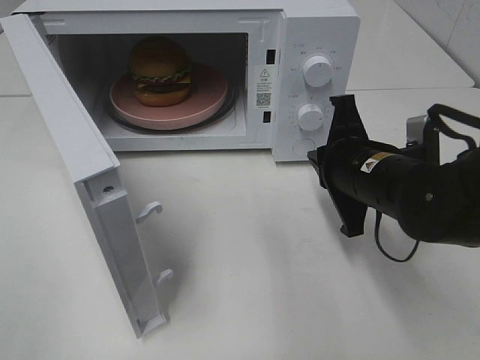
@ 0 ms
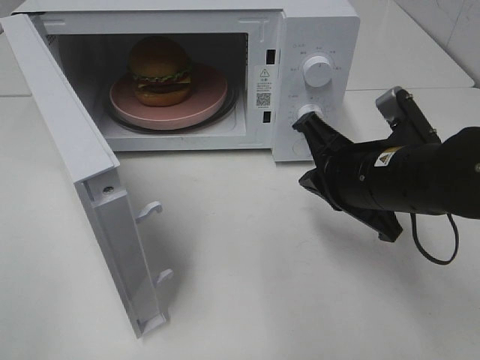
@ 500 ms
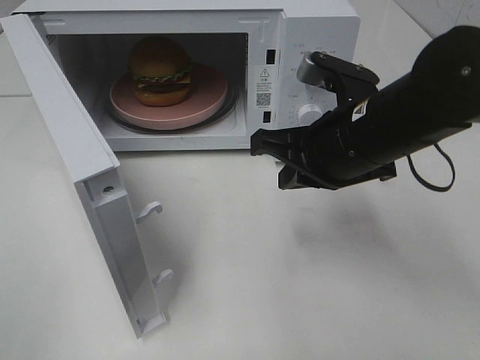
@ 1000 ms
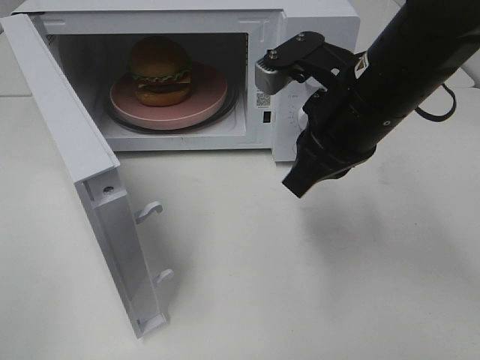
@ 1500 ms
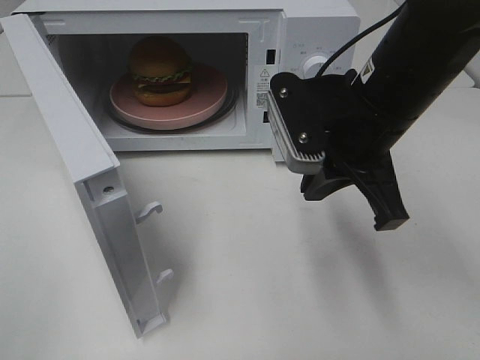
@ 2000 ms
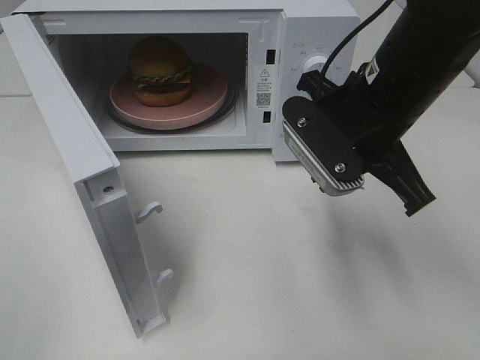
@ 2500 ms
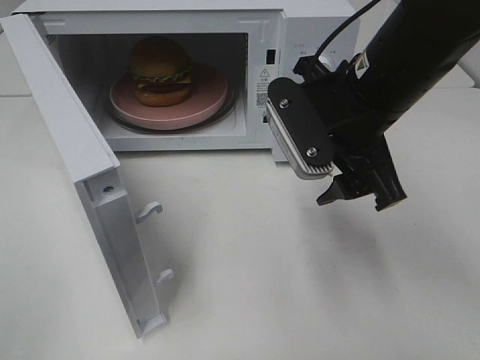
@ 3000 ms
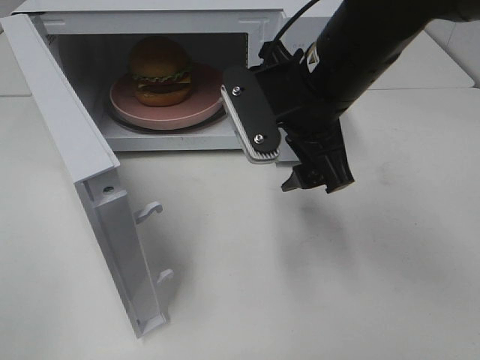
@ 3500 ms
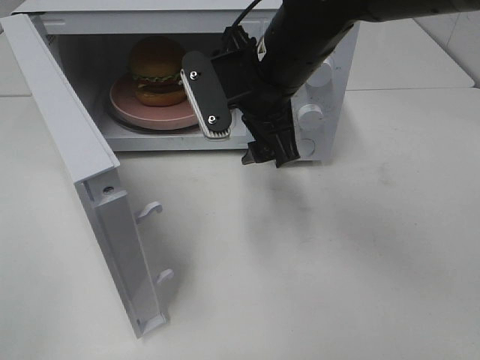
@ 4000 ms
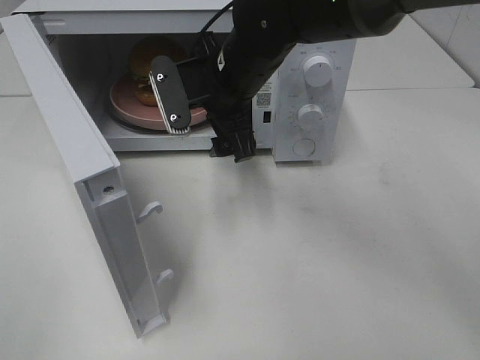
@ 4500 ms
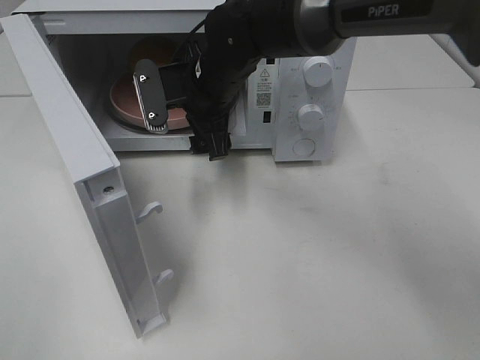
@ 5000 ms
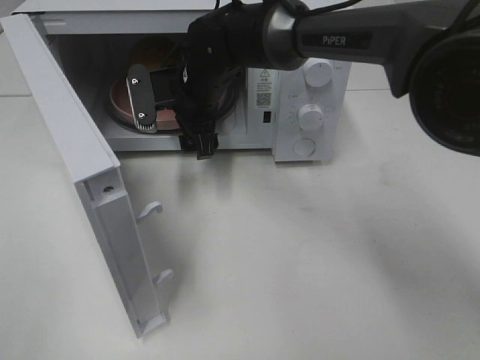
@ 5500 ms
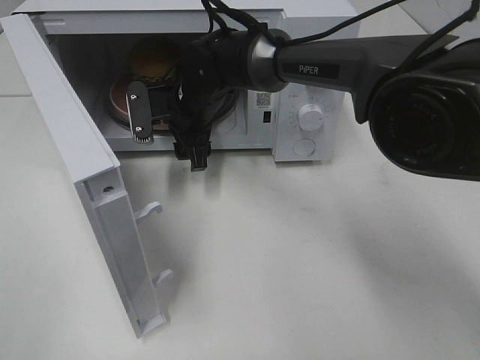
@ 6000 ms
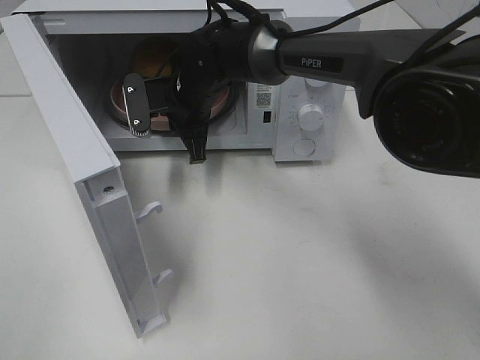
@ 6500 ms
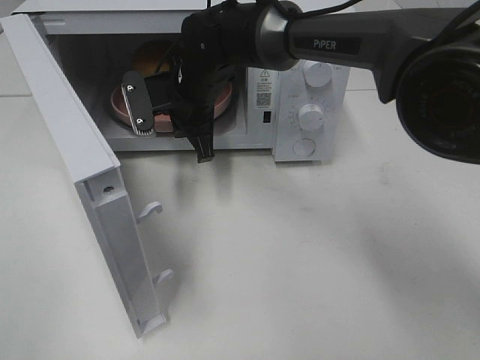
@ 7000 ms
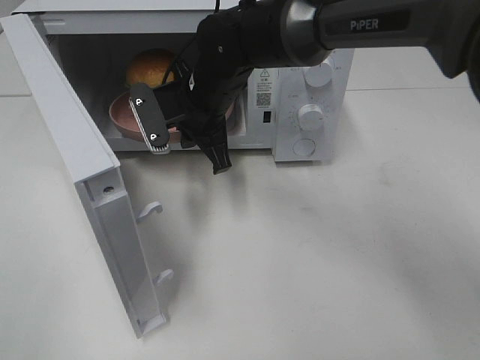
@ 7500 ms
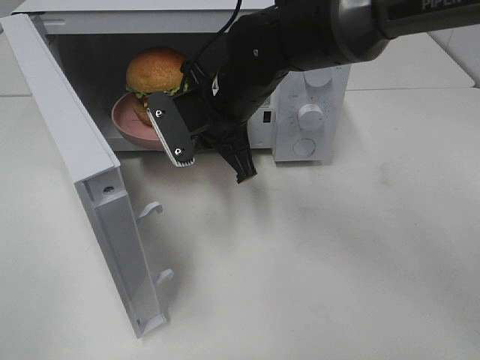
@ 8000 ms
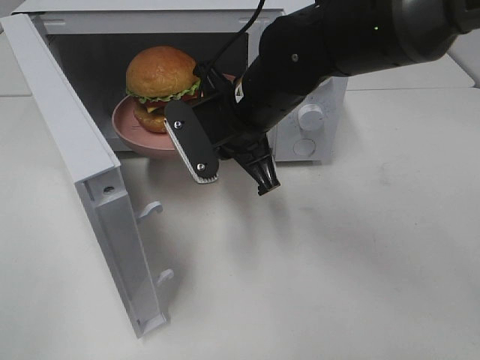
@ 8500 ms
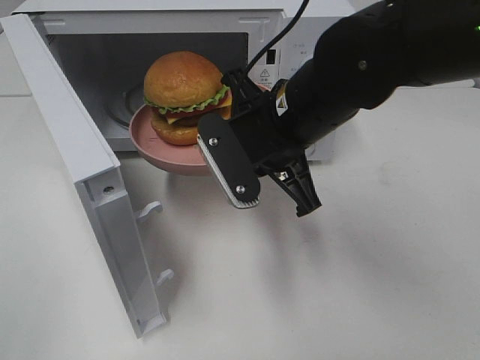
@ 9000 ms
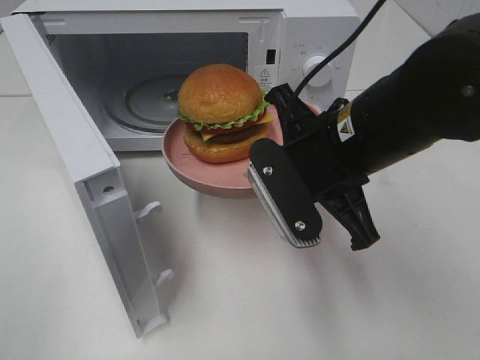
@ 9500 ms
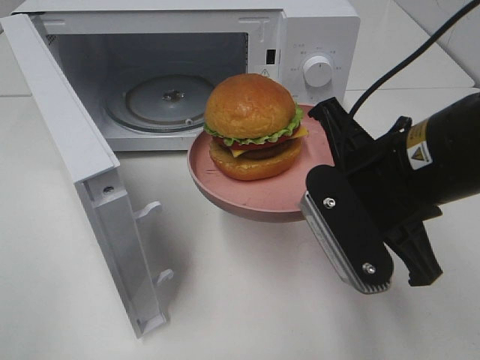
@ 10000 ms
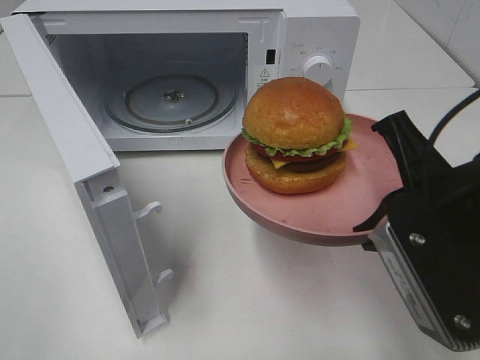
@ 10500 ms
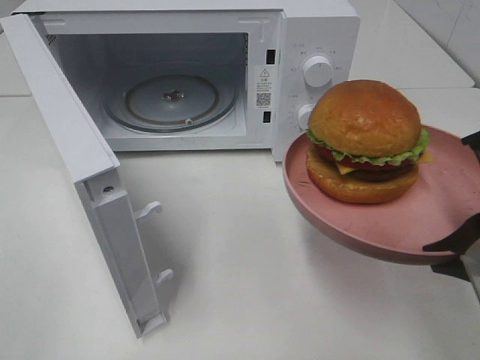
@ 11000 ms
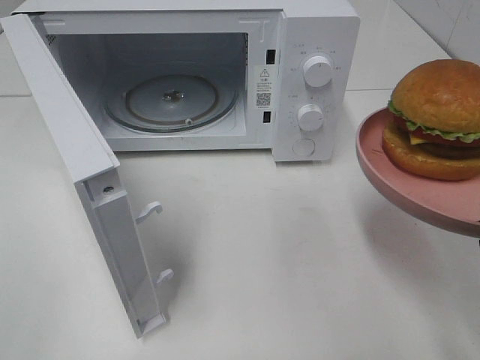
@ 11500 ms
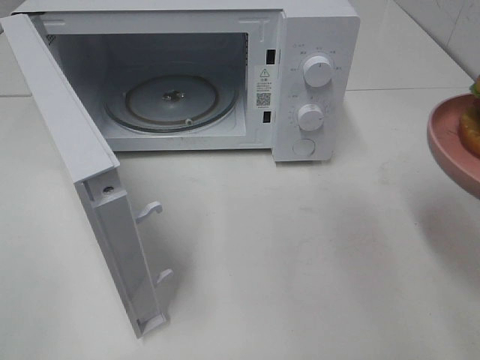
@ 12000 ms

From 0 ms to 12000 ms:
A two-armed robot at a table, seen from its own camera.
Task of the whole recording: Heat the burger.
Step, from 0 ms to 6500 ms: Right hand: grab the plate with the hamburger.
From 0 ms to 2000 ms: The right gripper shifts approximately 10 cm upward.
From 2000 ms to 4000 ms: The right gripper moves to the left and forward, some 10 cm, and opens up.
From 4000 ms to 6000 ms: The right gripper travels forward, downward and to the left by approximately 15 cm.
From 6000 ms to 8000 ms: The right gripper goes about 10 cm backward and upward, and closes its fingers.
From 8000 ms to 10000 ms: The right gripper goes roughly 20 cm backward and to the right.
From 10000 ms to 12000 ms: The right gripper goes roughly 15 cm to the right and backward.

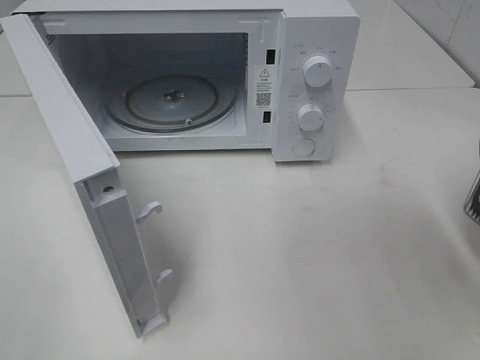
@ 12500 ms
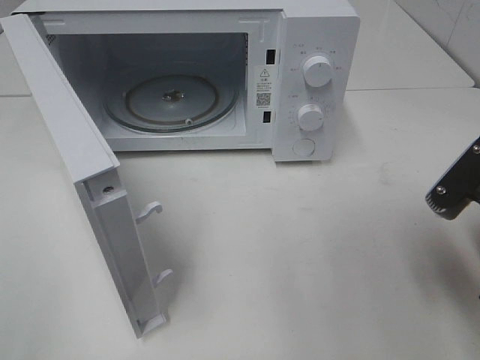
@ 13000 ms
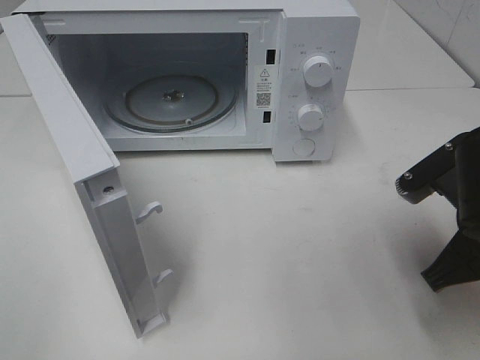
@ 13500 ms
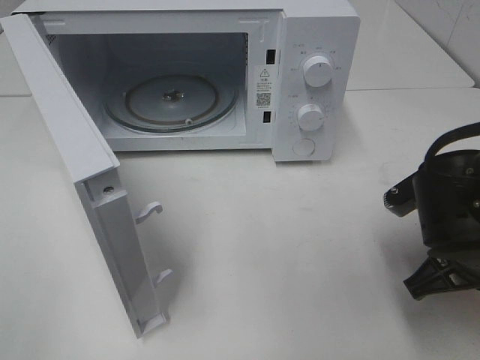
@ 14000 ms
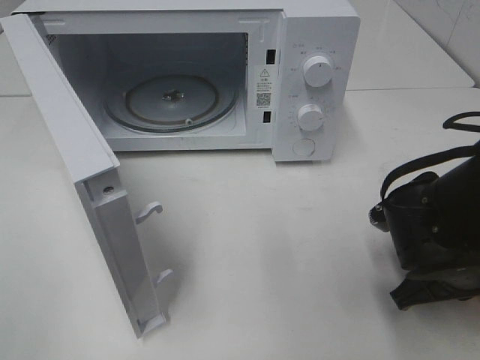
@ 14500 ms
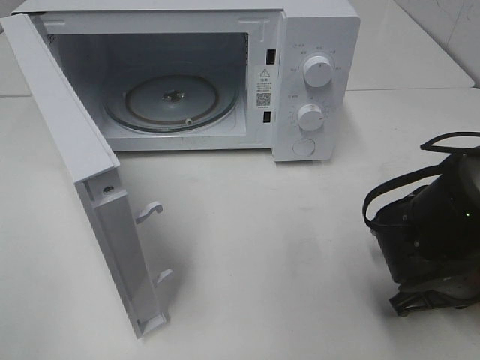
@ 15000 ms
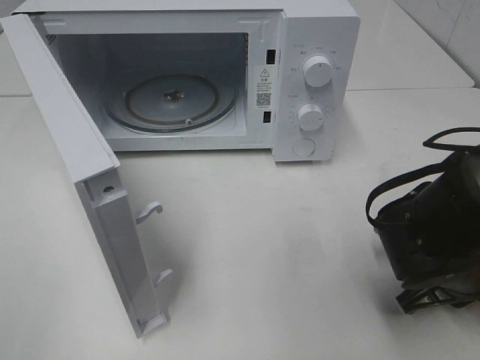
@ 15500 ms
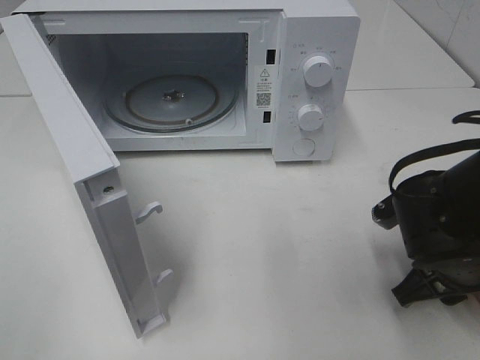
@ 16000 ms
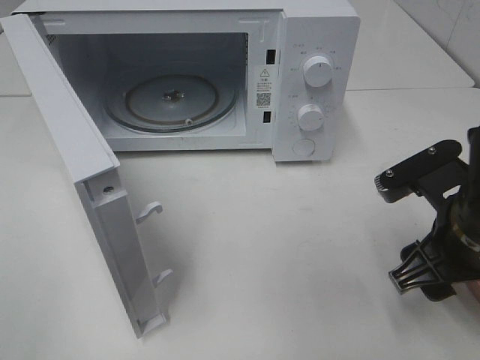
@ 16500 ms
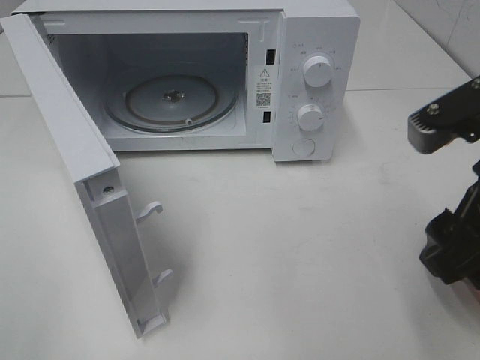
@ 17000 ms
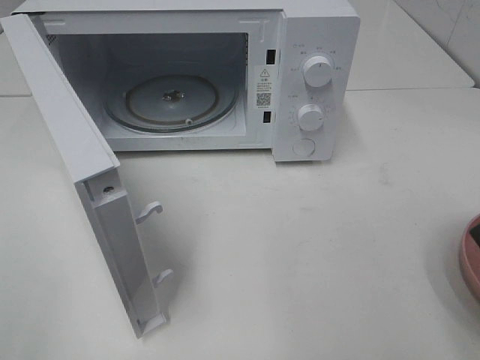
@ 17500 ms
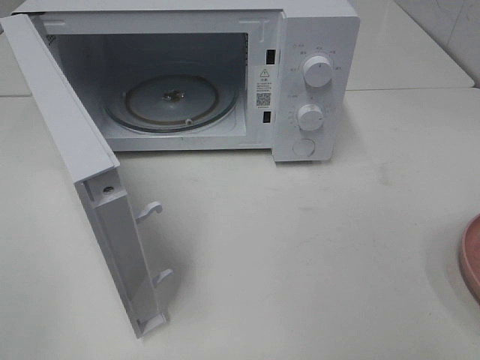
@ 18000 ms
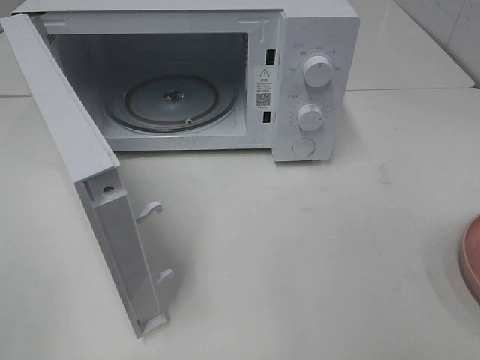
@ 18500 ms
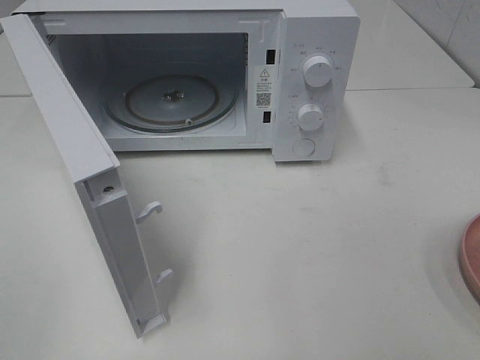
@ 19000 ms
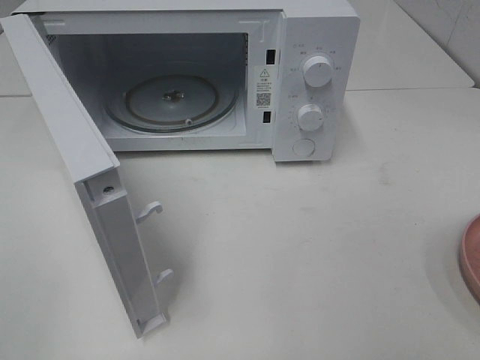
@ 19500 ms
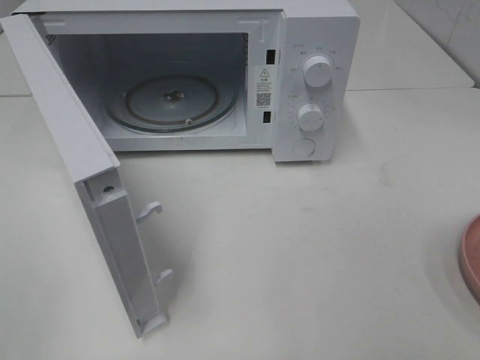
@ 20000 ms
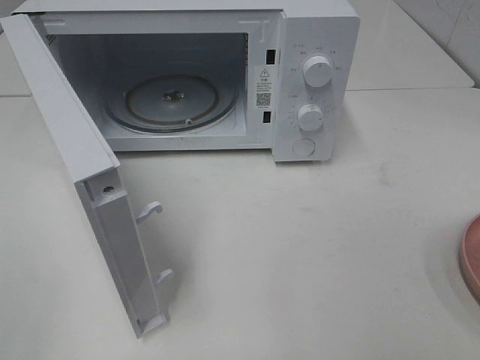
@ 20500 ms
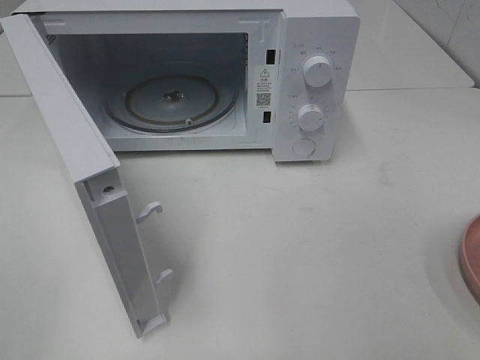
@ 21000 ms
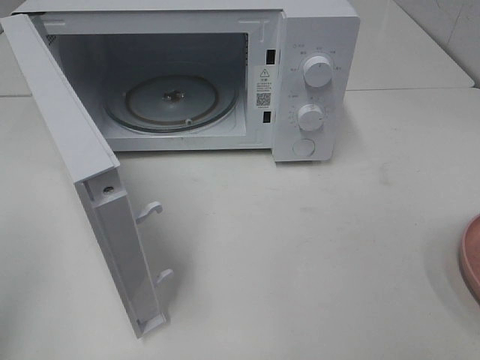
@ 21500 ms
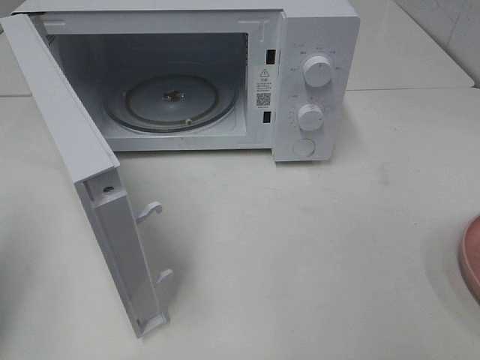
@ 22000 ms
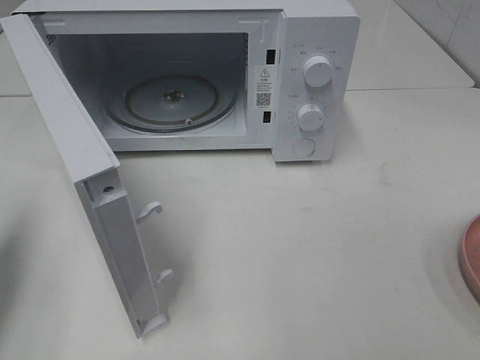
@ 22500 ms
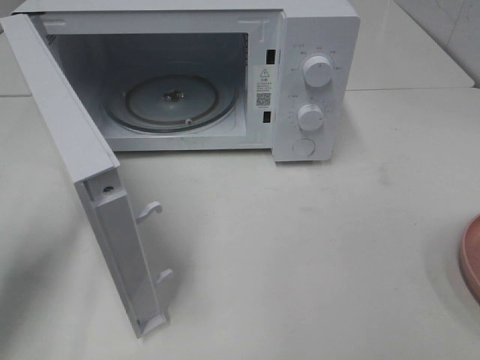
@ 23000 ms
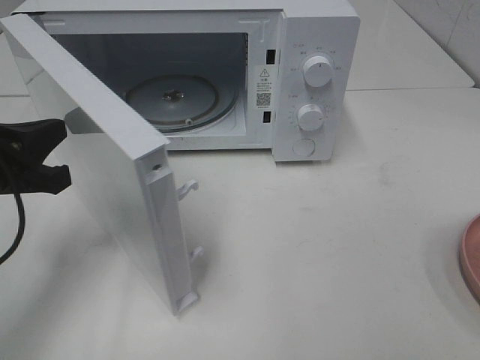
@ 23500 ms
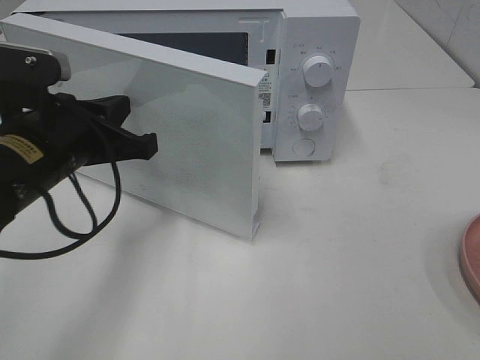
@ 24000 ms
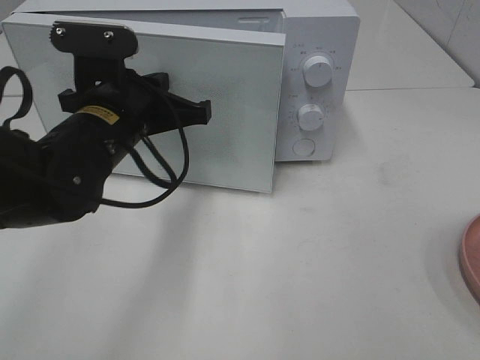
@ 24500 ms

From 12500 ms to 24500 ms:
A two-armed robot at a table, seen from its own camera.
Task of the whole recording: Heat the burger.
Step, from 12500 ms to 16000 ms: Right hand: place the plate on the table.
From 12500 ms to 14500 ms: The right gripper travels downward and forward by some 15 cm.
From 14500 ms to 16500 ms: The right gripper travels upward by some 5 cm, and opens.
From 16500 ms to 18500 ms: The right gripper shifts some 25 cm backward, upward and to the right.
From 20500 ms to 22500 ms: The left gripper goes approximately 20 cm forward, and closes its fingers.
From 22500 ms to 24500 ms: The left gripper travels to the right and forward by about 25 cm.

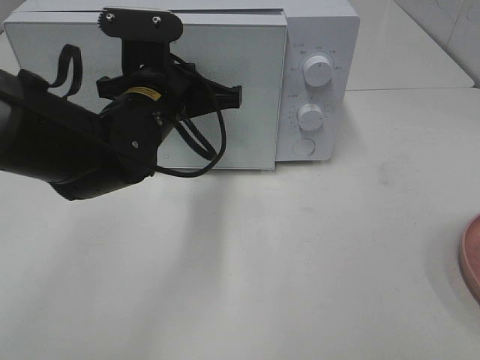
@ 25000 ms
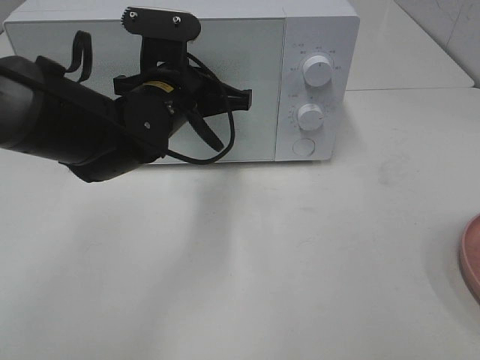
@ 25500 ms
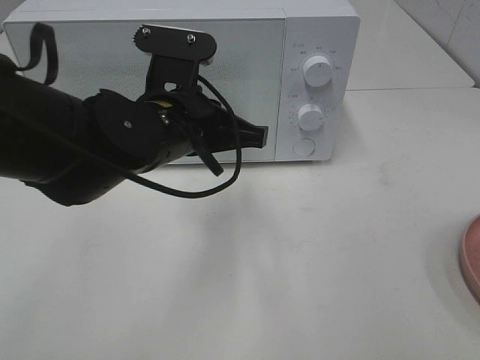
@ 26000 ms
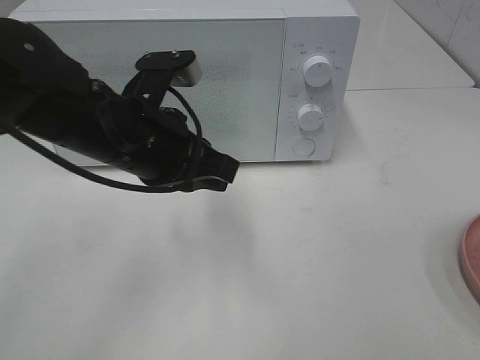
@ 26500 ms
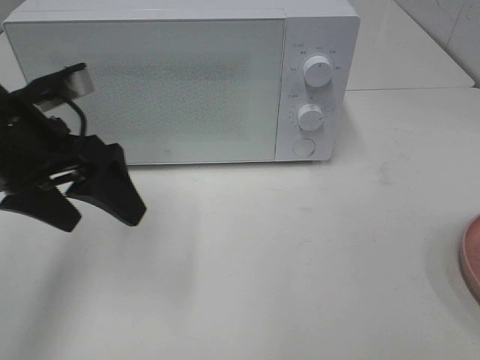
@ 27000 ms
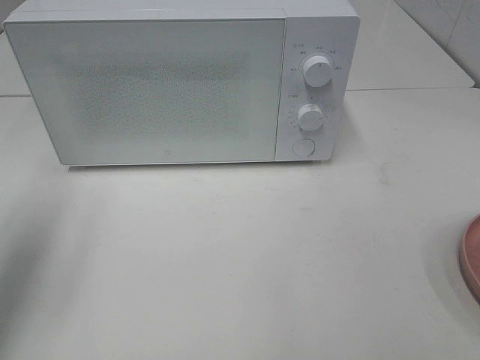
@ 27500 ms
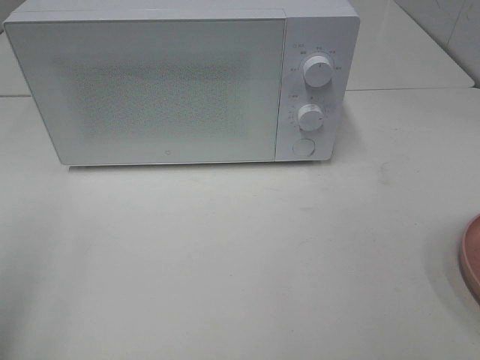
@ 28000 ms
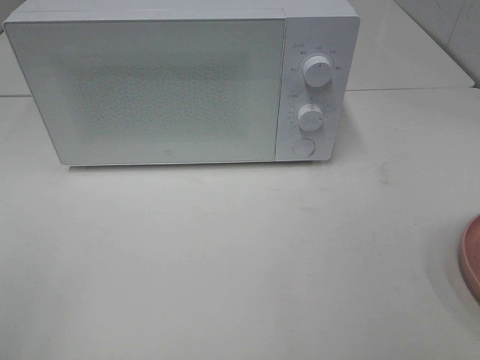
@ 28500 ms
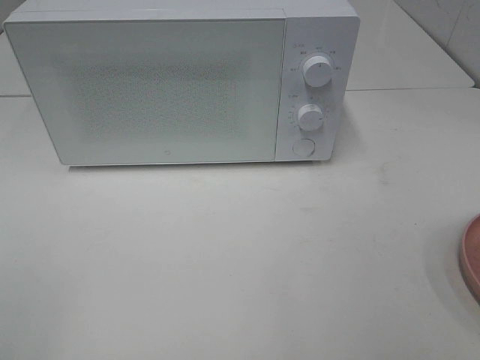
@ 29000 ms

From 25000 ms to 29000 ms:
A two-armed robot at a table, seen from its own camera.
Task of the whole recording: Heat the burger.
From 25000 ms to 27000 ms: The left gripper moves to the left and backward, about 15 cm, and opens its fingers.
From 27000 ms to 29000 ms: The left gripper travels backward and to the left by some 30 cm.
